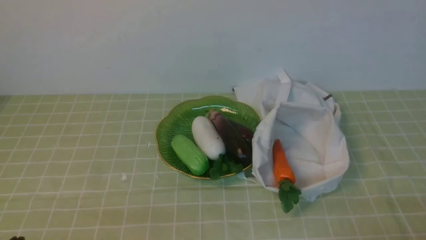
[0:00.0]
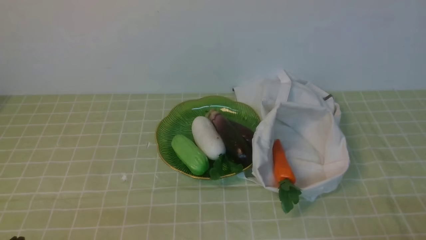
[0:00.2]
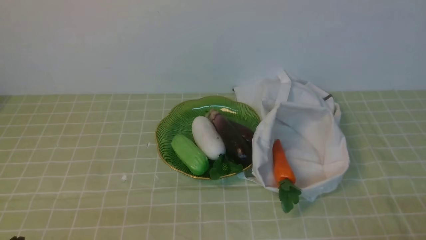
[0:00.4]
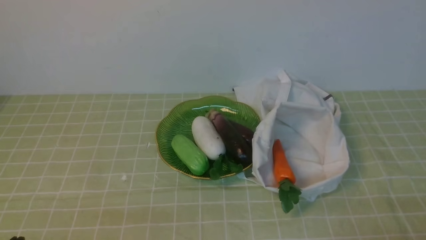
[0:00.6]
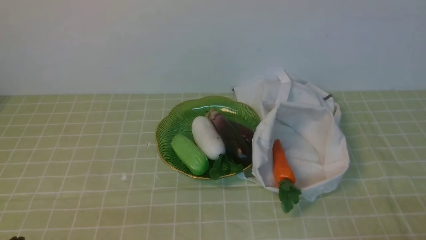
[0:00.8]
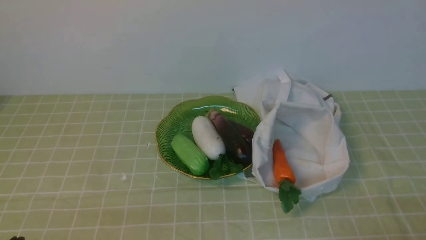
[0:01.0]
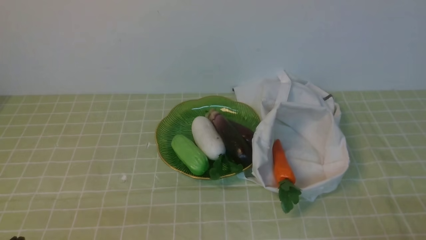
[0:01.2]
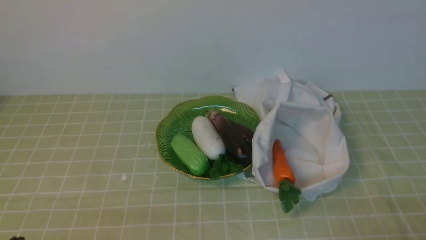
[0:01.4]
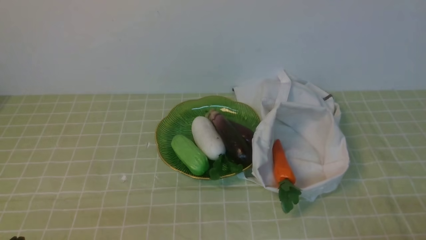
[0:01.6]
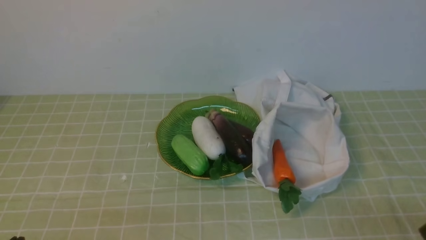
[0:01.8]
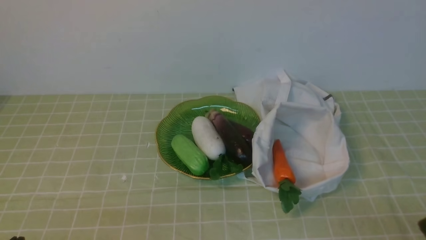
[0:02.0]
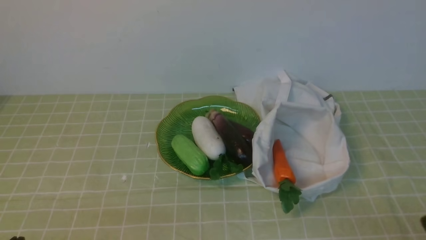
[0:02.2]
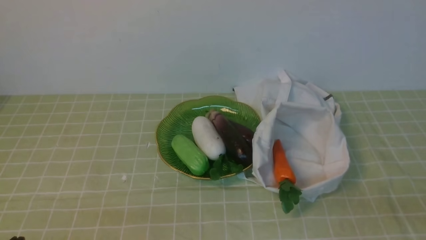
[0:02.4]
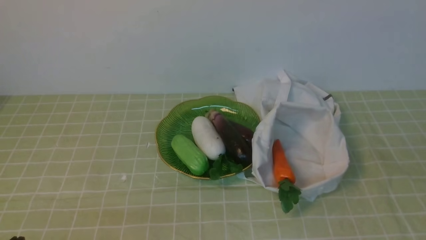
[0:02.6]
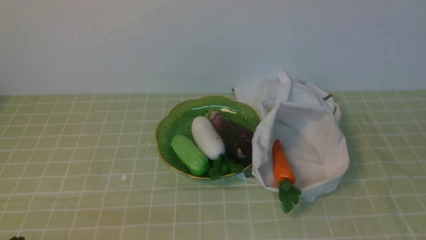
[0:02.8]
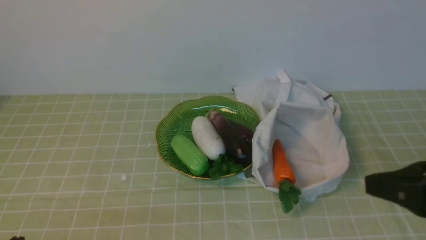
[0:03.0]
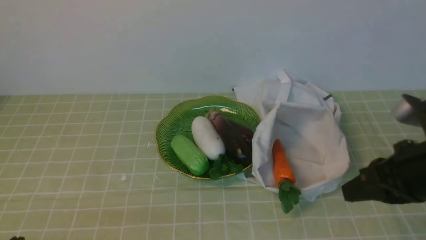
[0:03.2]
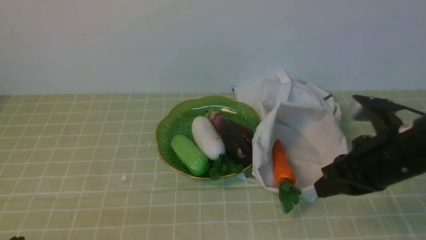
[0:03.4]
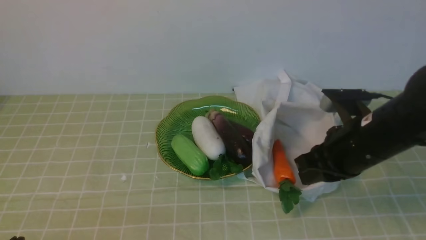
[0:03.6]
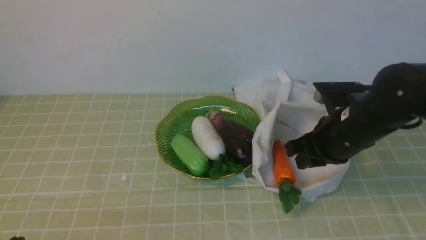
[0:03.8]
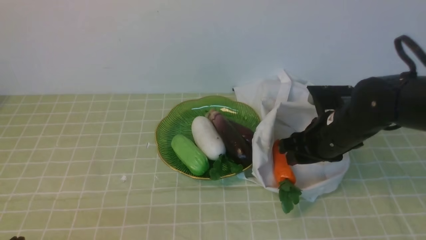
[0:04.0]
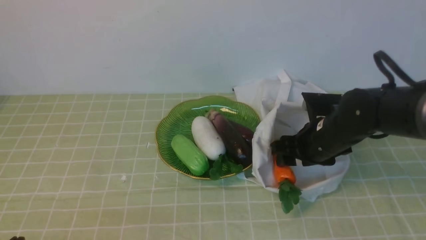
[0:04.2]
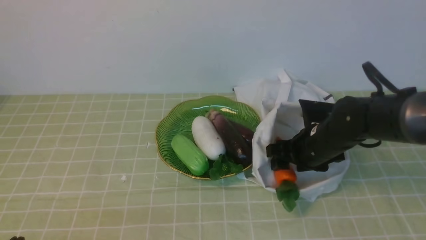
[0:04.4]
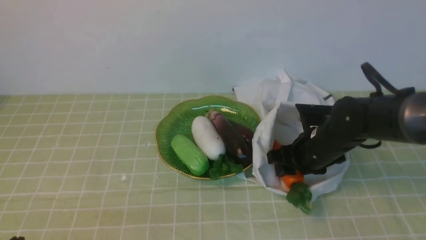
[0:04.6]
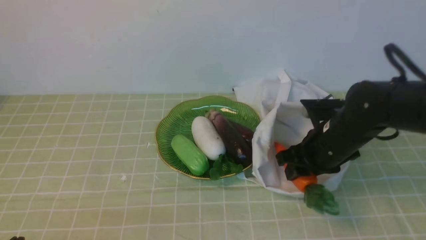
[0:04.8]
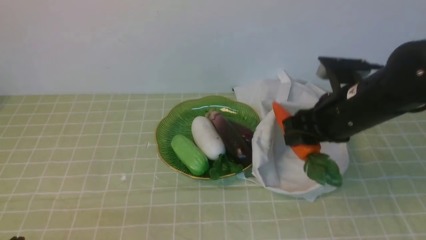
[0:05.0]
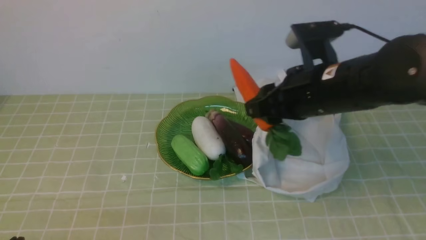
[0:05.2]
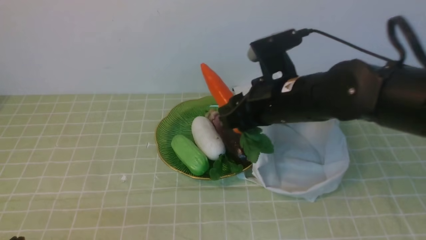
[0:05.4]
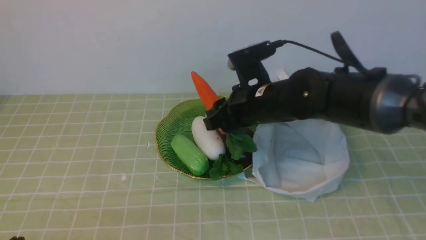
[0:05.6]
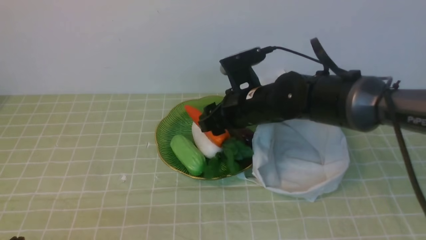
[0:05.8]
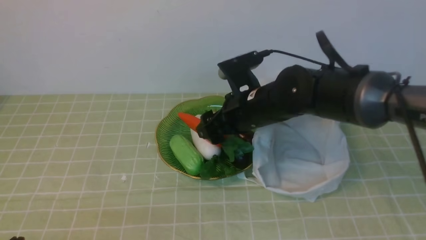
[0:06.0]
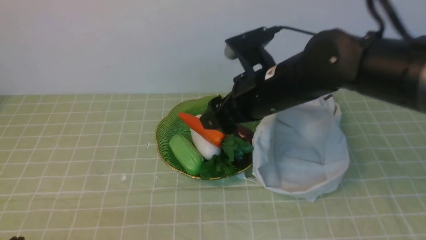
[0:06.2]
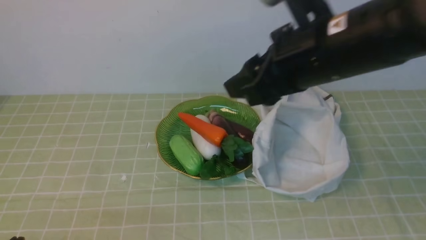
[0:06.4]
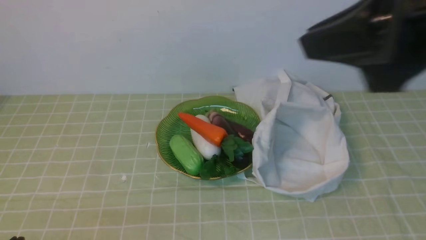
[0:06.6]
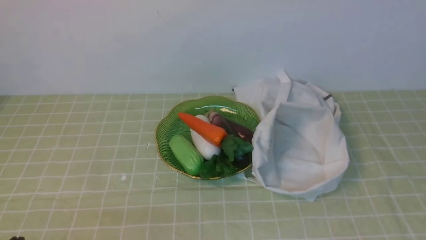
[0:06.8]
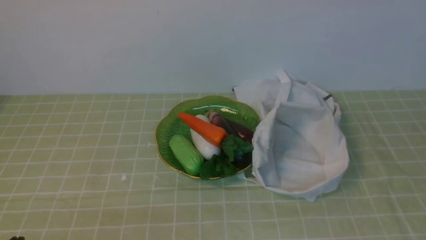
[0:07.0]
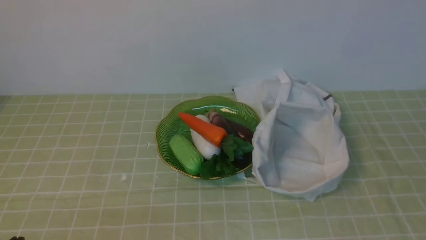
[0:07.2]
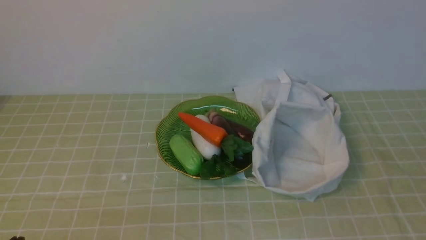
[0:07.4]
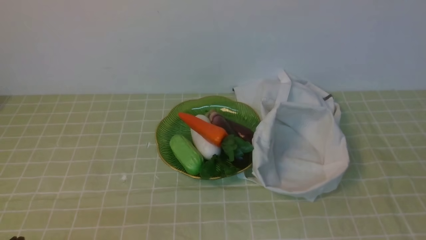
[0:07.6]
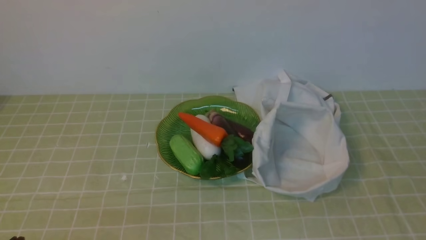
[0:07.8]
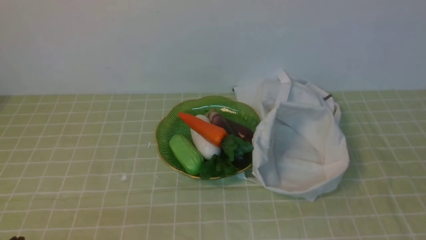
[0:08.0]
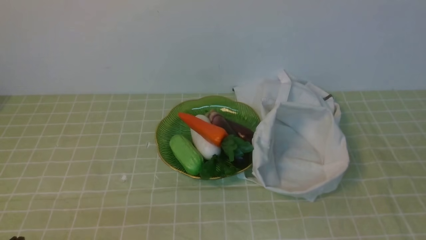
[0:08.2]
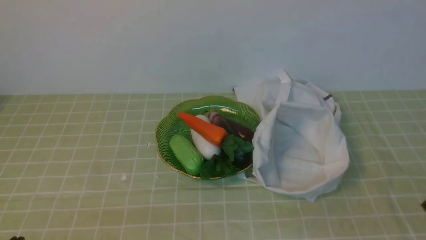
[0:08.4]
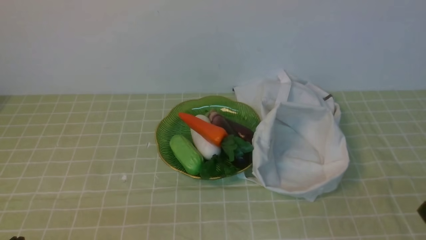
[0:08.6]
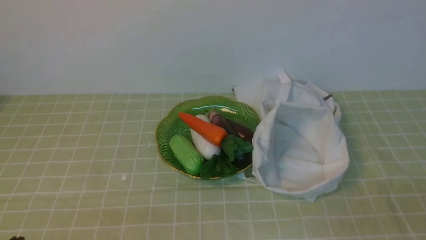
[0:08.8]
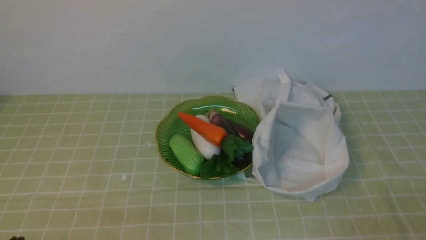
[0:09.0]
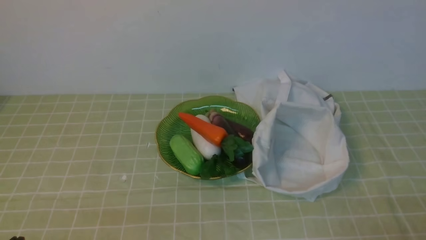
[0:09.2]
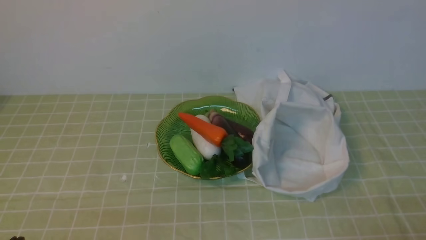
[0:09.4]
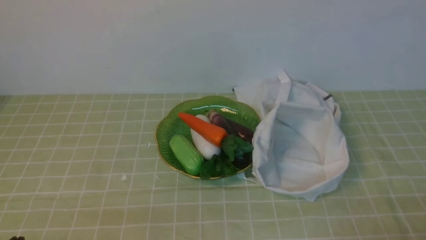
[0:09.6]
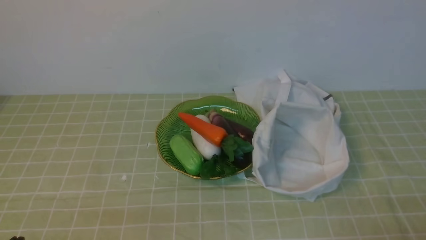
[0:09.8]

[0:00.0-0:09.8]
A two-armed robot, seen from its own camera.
Task of the whole recording: take vegetables from bag on green coffee tablecloth place on plate.
Step, 0:00.0 to 0:04.6: Grasp the carrot with right gripper.
Step, 0:04.8 to 0:06.2: Place the carrot on the plate with right gripper.
0:00.0 to 0:01.4: Both grippers stay put.
0:02.8 to 0:04.2: The right gripper shifts some 30 cm forward and downward, and opens.
0:04.2 to 0:05.6: The right gripper goes roughly 10 cm to the left and upward.
0:05.6 to 0:07.0: The right gripper heads backward, to the right and upward, covering approximately 40 cm, and closes up.

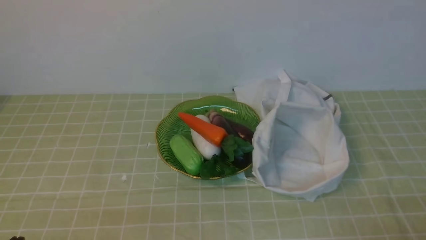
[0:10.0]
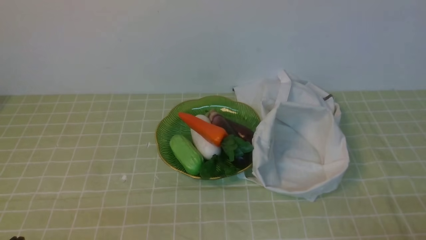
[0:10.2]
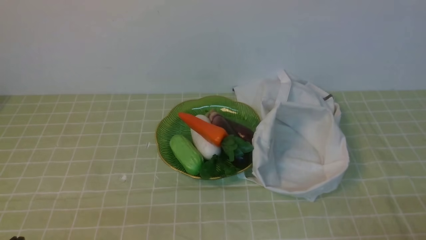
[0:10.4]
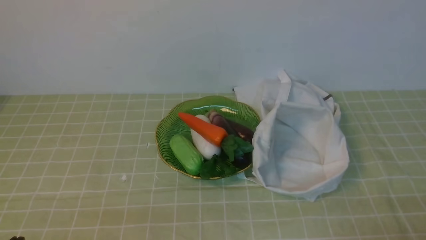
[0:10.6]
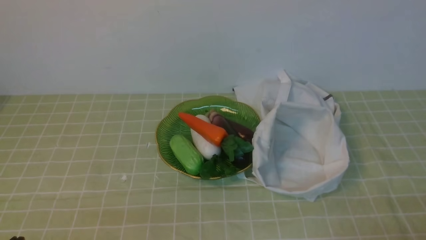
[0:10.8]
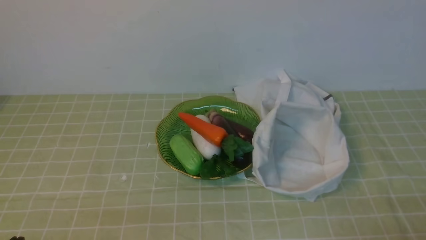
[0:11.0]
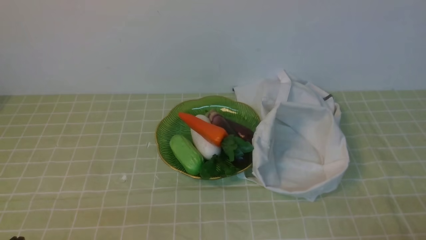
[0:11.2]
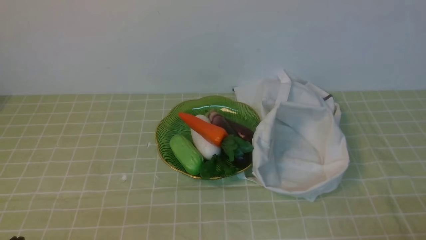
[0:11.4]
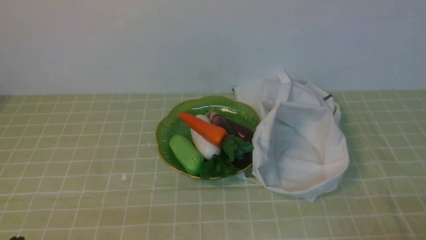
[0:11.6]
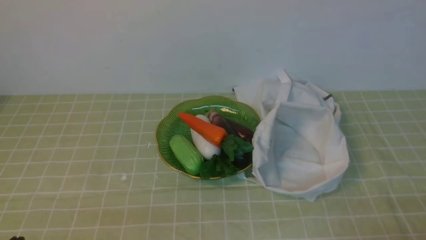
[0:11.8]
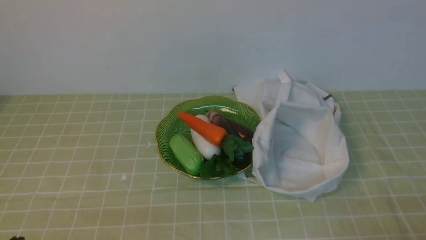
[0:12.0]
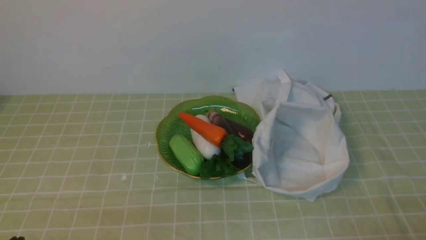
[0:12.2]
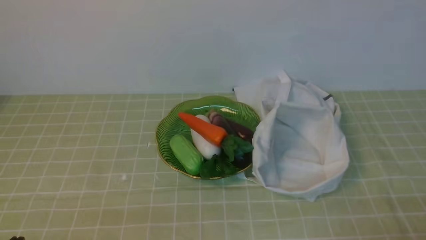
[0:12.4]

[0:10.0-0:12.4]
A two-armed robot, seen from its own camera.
Task of the whole recording: take vegetables from bag on green coffee tablecloth place on plate.
0:10.0 to 0:12.4: The two grippers keep their place.

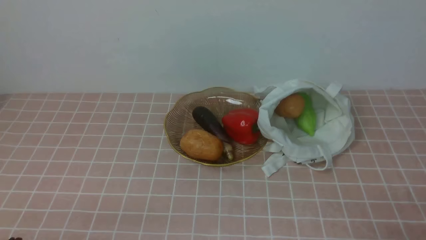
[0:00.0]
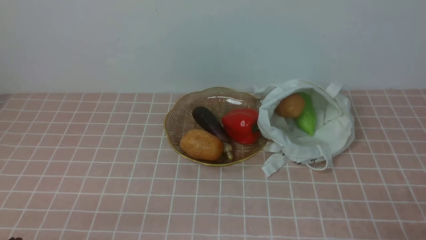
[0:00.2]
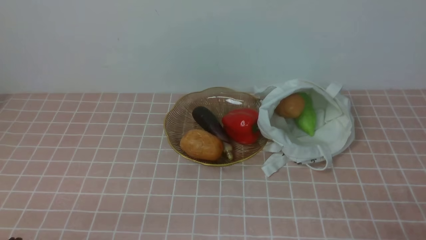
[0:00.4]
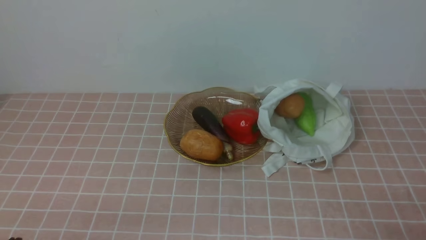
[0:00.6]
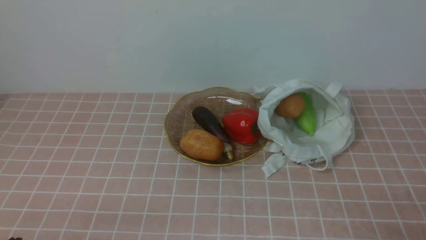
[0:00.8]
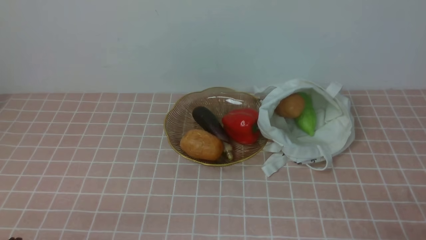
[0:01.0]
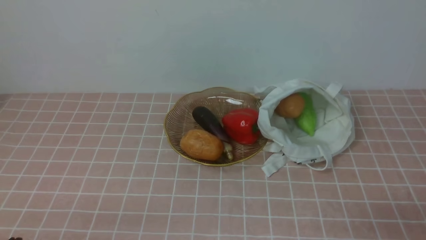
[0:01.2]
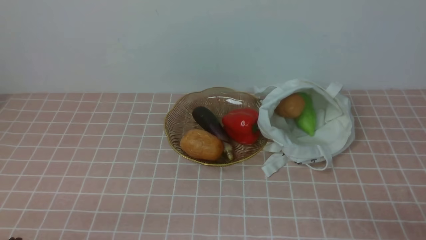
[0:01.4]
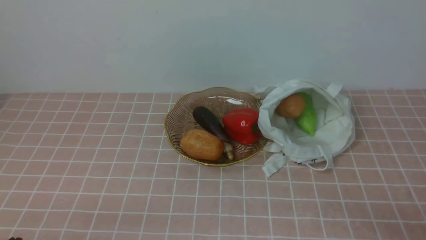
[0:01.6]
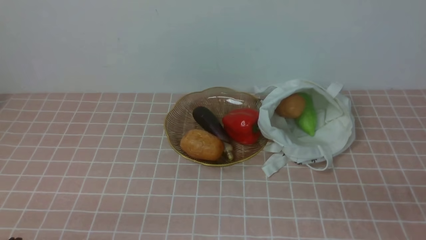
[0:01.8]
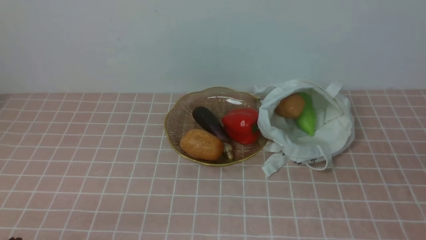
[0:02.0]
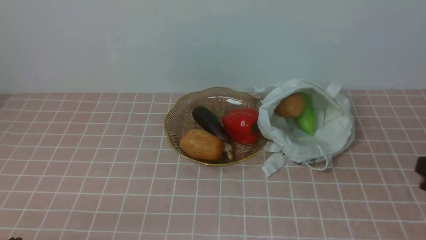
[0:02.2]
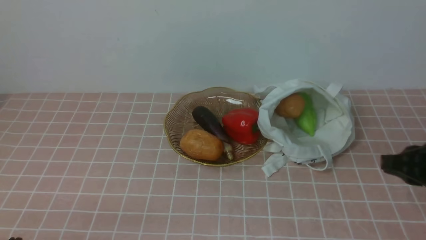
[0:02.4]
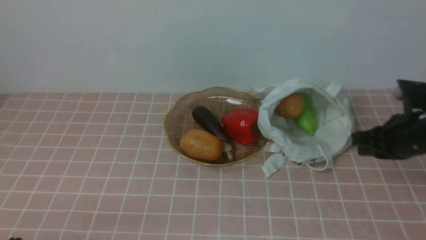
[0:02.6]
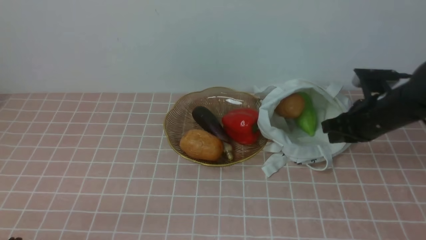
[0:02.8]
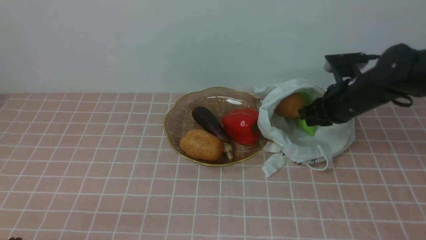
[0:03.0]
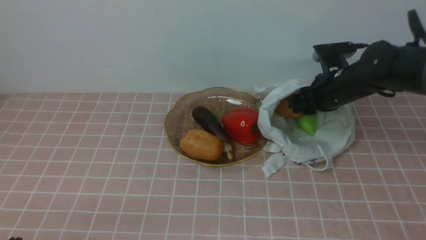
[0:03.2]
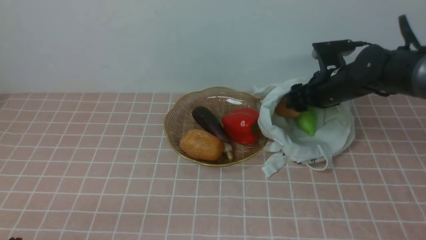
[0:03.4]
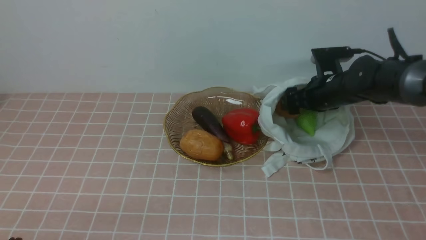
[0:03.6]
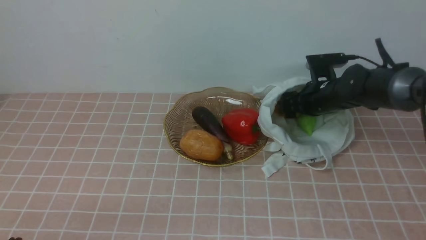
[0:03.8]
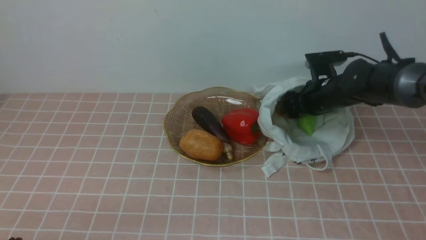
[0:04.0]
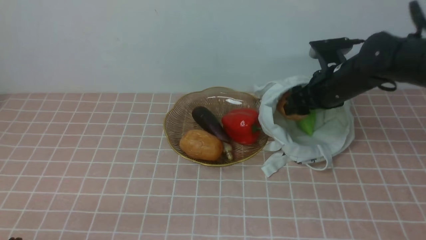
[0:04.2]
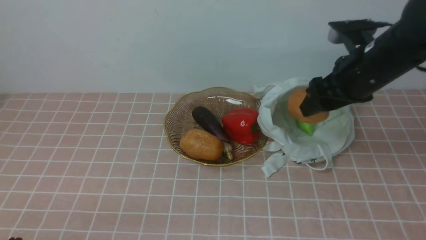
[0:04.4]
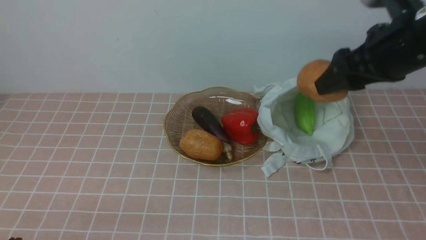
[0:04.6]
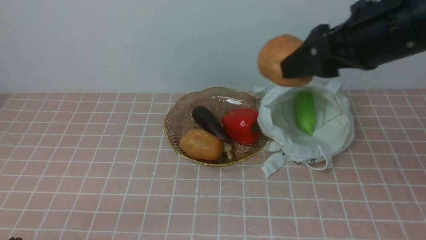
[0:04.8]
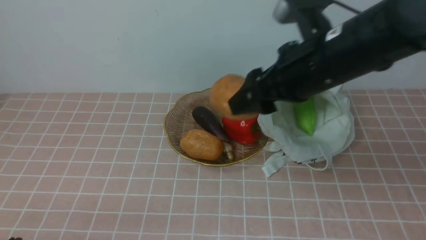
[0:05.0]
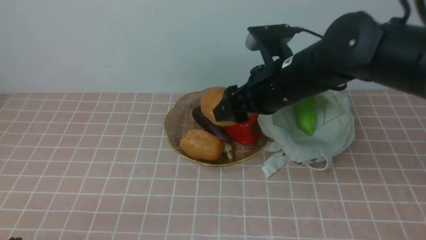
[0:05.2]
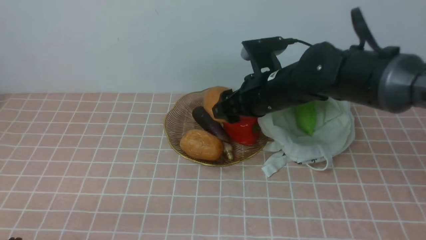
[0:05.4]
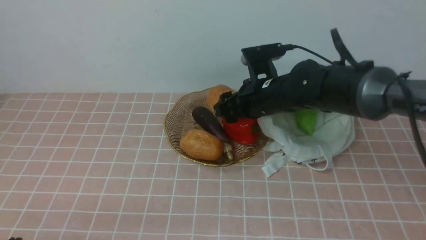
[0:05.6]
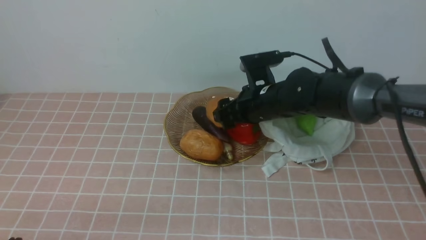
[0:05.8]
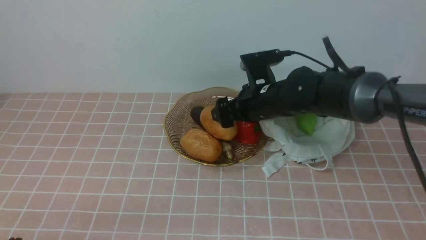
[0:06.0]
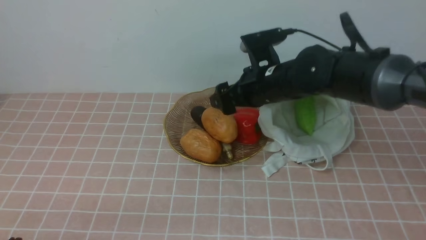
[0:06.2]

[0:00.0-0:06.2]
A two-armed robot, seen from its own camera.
Task of the whole recording: take vegetables from bag on pink coffee tablecloth place on plate.
Step, 0:00.0 to 0:03.8: Grasp the potato with right gripper.
0:01.6 to 0:03.2: The right gripper heads forward, covering some 35 cm.
0:03.2 to 0:04.6: The right gripper moves upward and backward, roughly 15 cm, and opens its fingers.
0:04.6 to 0:06.2: The right gripper goes some 15 cm to the left, downward and forward.
